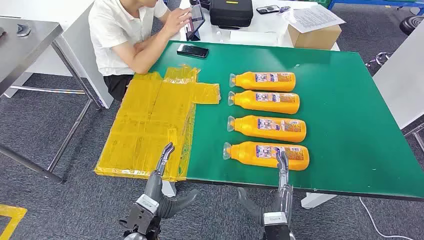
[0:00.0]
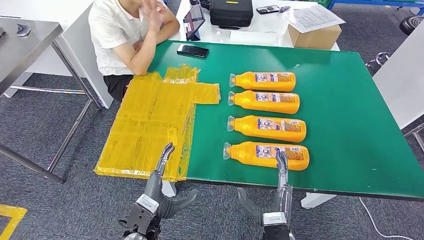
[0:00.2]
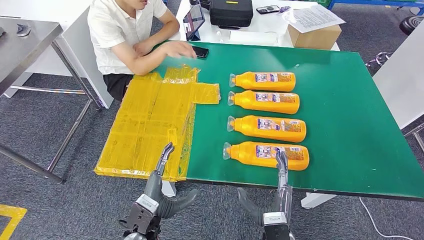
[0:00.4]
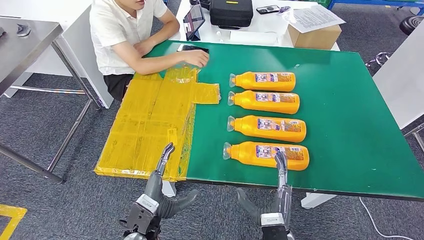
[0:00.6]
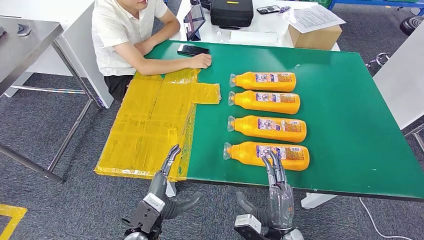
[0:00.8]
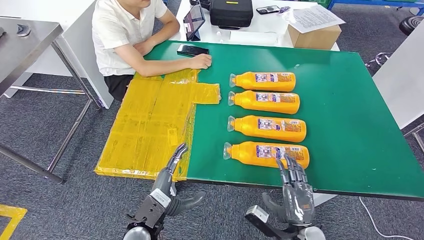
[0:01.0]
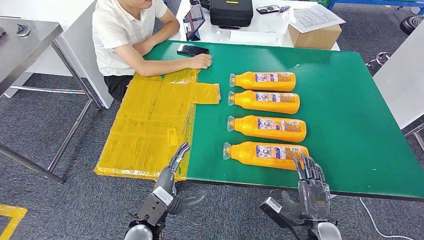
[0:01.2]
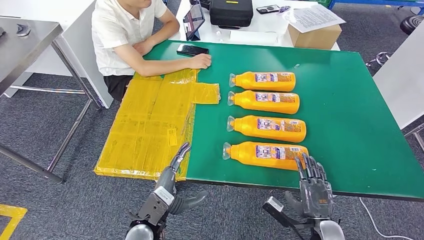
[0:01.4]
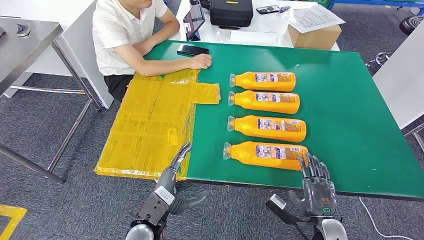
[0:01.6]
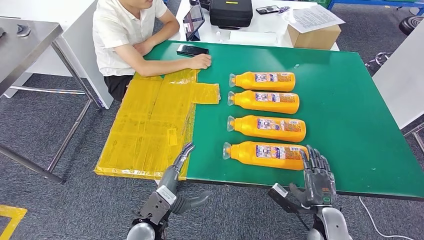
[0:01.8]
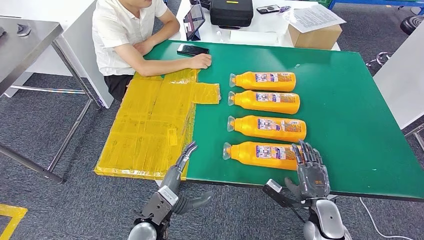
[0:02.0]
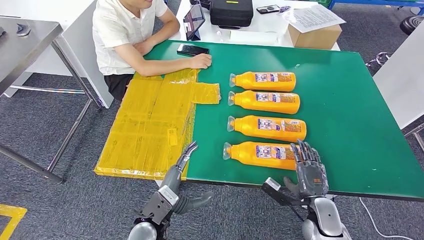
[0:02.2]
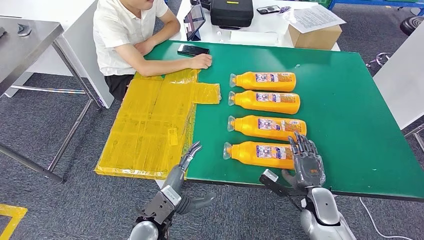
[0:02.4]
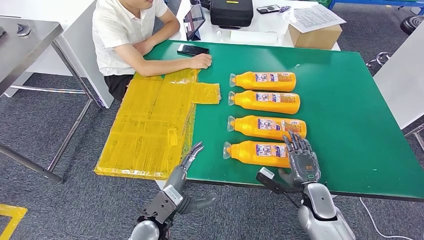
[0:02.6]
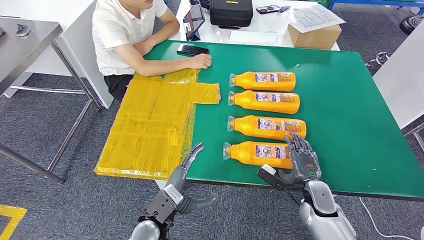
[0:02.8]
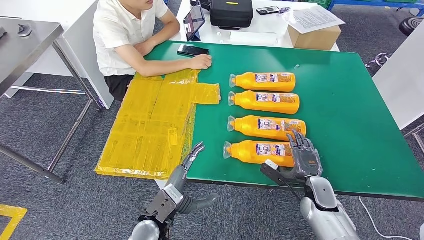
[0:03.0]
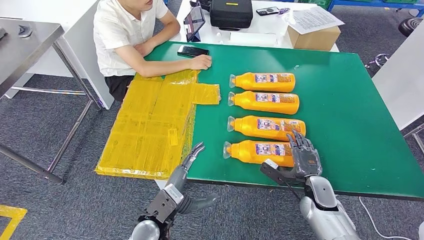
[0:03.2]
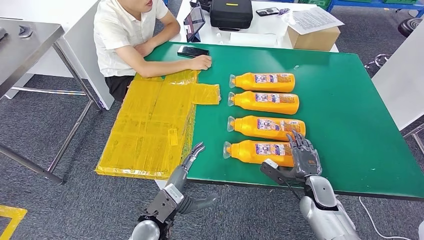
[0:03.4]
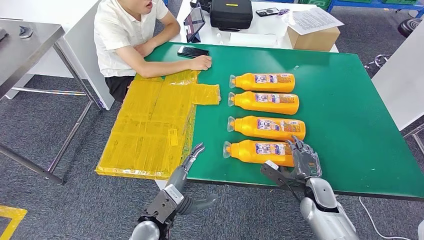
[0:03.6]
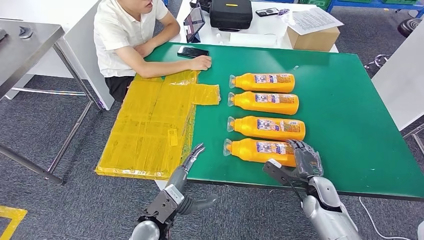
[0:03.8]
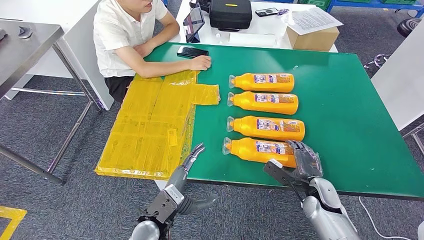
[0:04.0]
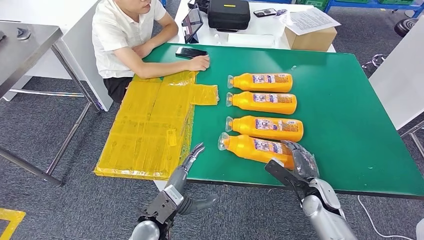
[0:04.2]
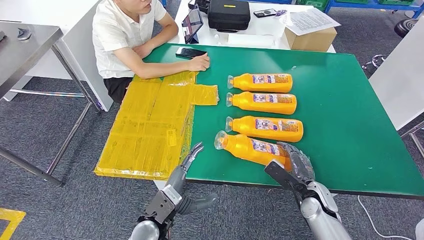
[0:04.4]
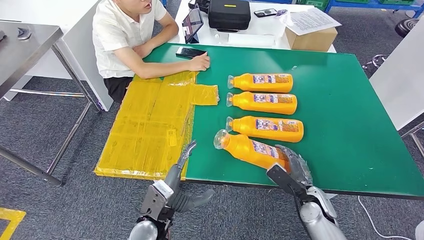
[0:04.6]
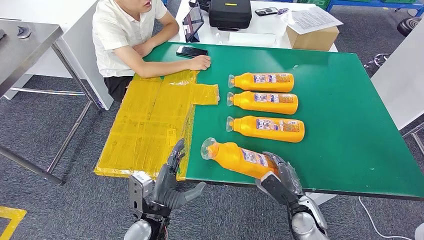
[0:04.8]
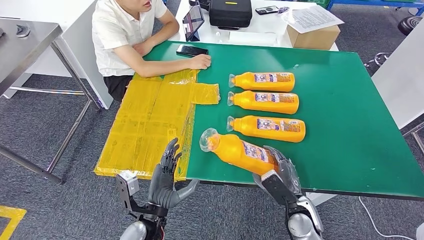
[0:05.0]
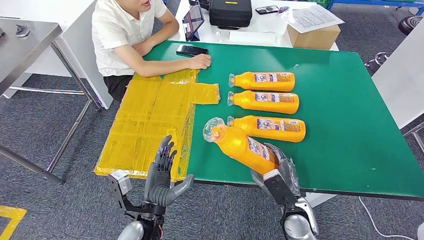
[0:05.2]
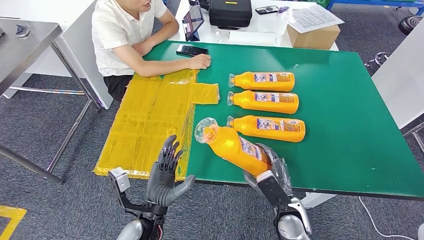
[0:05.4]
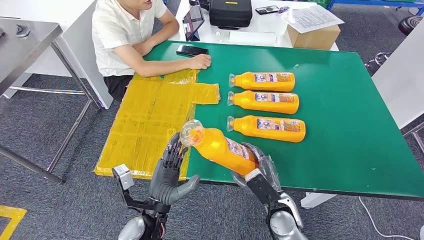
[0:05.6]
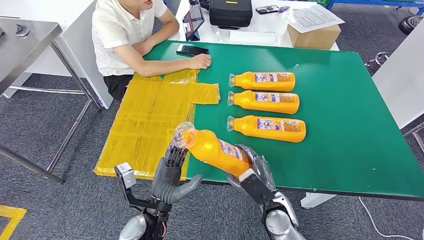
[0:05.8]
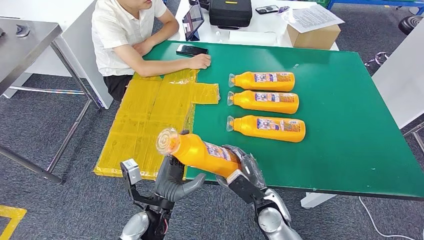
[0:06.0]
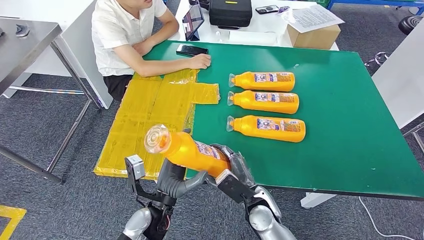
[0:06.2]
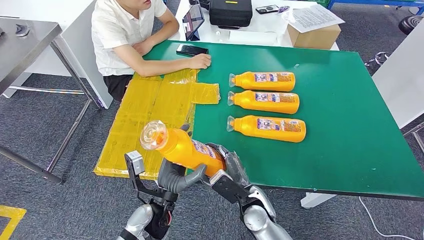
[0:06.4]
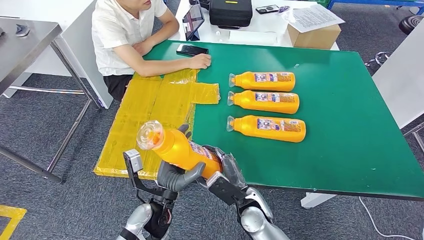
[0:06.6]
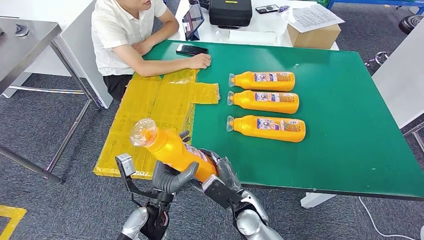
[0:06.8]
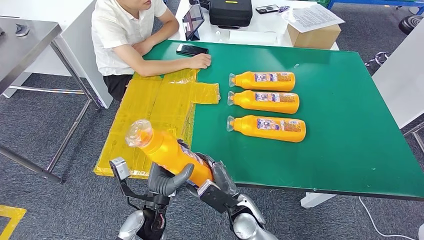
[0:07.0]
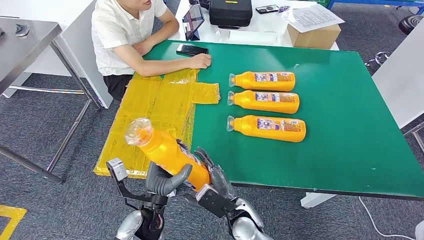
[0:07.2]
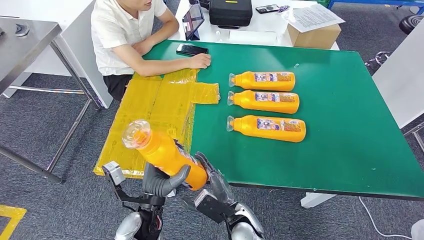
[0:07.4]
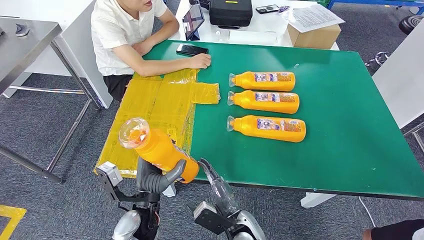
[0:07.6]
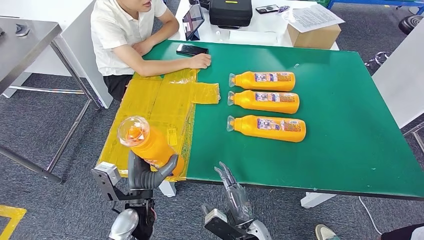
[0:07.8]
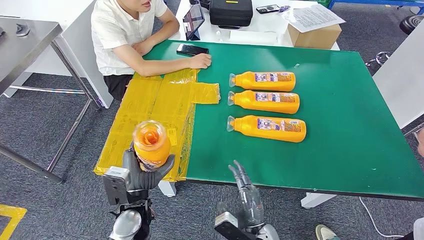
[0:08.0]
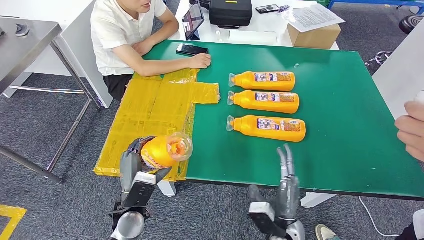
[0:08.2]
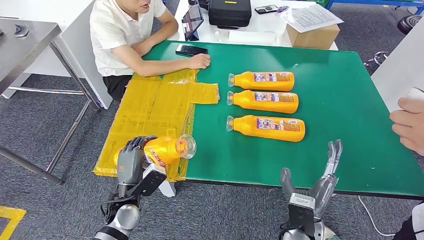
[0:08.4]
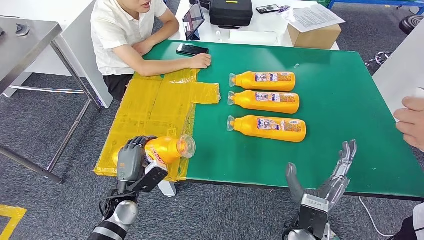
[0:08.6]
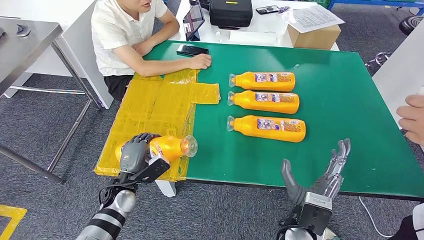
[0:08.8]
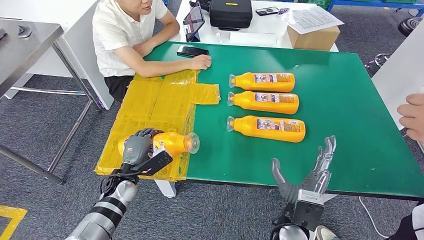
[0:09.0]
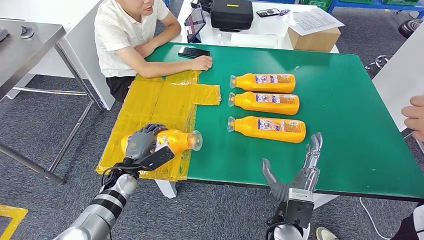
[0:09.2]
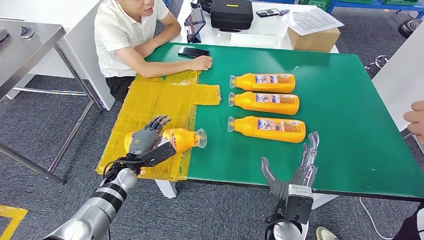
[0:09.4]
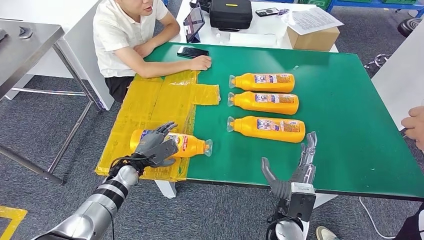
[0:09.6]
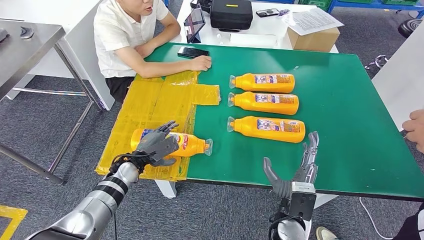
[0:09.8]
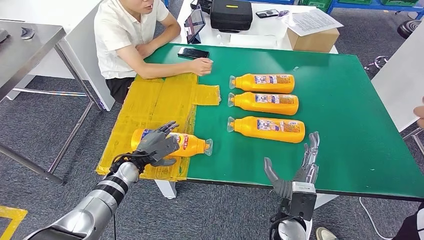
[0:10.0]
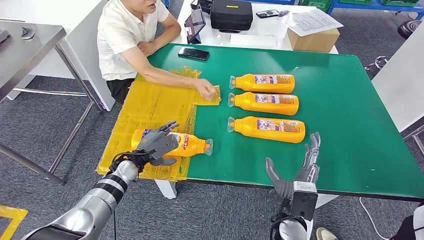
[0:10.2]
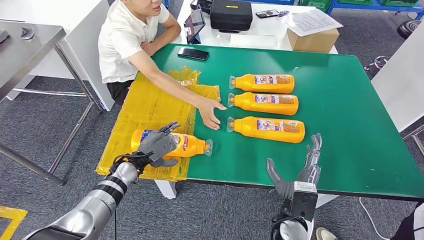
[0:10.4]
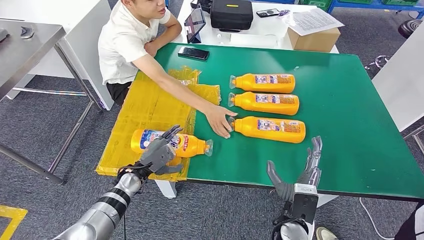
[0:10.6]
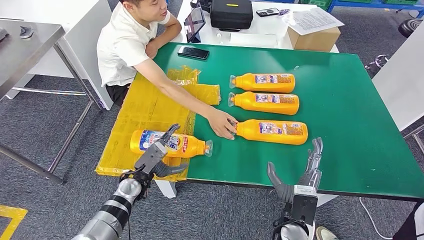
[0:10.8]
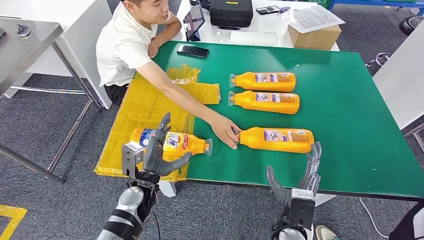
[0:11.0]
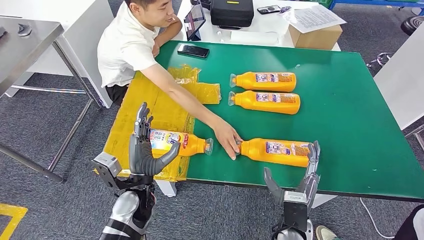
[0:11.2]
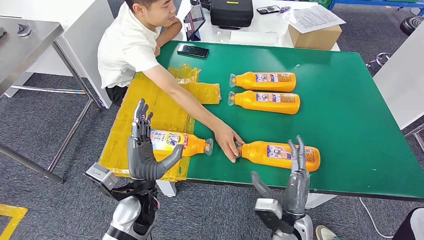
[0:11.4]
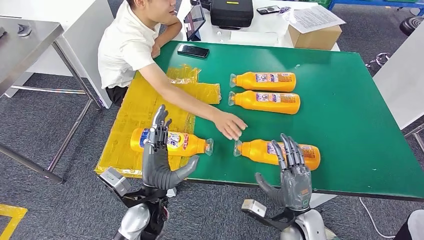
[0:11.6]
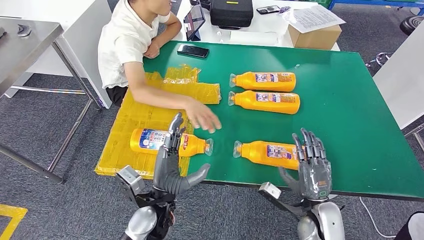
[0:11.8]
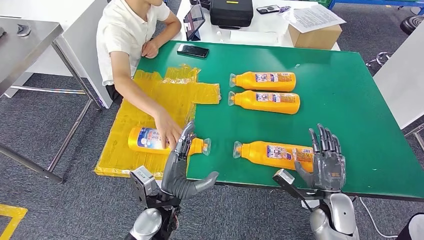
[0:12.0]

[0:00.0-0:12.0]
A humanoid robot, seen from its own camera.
Step, 0:00.0 to 0:05.6: Take the bottle from the table.
Step, 0:05.8 to 0:10.4: Flip the bottle to face forward.
0:01.6 to 0:03.0: The right hand moves forward, some 10 cm.
0:06.0 to 0:07.6: The right hand goes roughly 10 cm to the left and backward.
0:07.6 to 0:09.0: The right hand moves to the right and upward, roughly 10 cm. Meanwhile the left hand heads to the left and forward, covering some 15 cm.

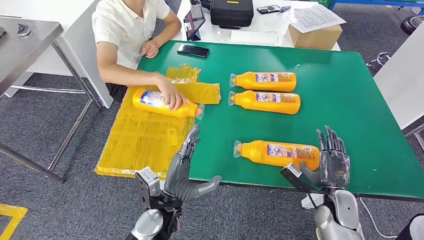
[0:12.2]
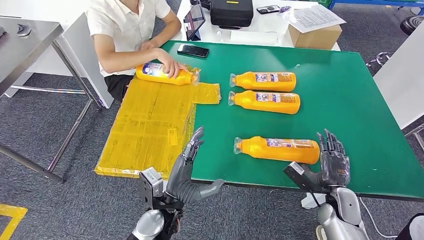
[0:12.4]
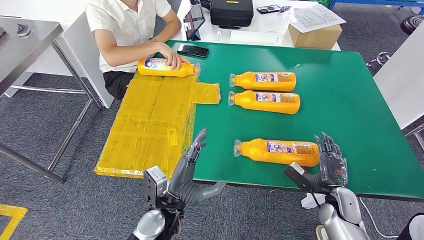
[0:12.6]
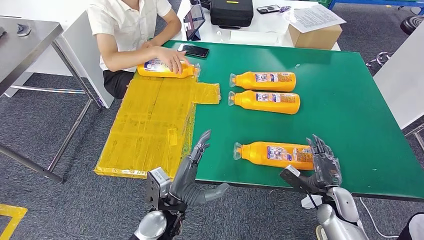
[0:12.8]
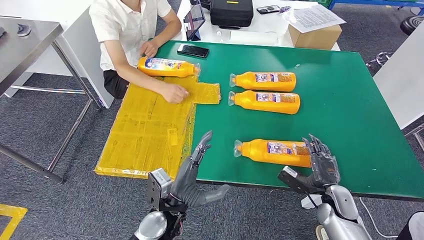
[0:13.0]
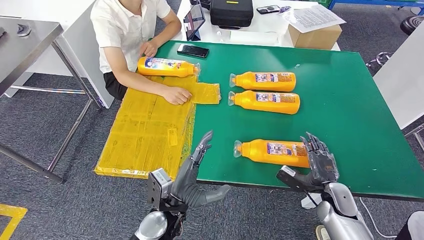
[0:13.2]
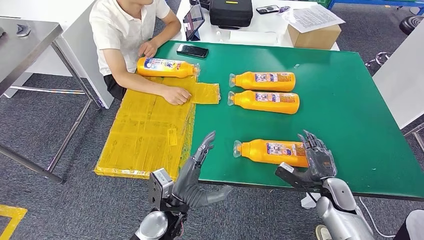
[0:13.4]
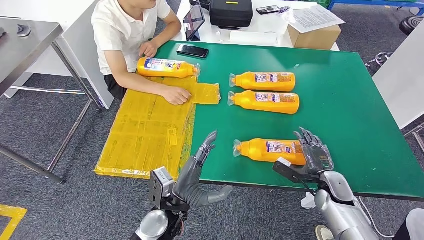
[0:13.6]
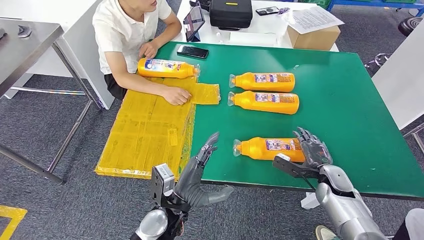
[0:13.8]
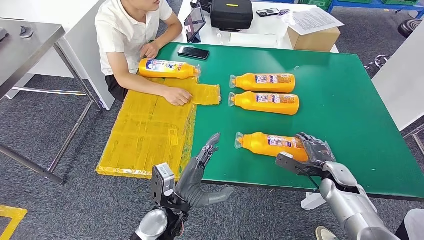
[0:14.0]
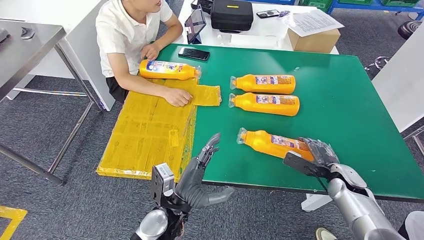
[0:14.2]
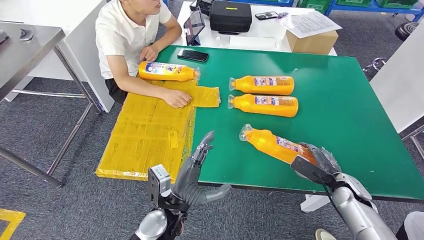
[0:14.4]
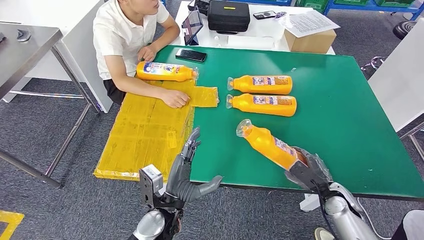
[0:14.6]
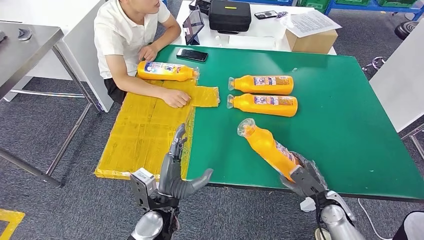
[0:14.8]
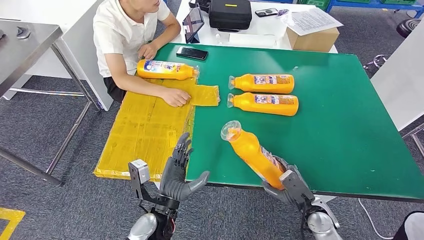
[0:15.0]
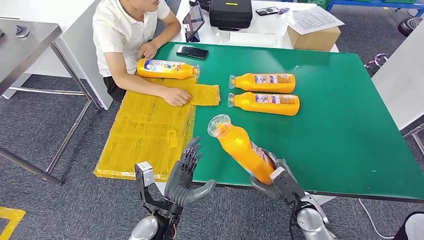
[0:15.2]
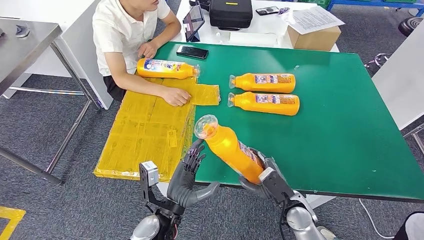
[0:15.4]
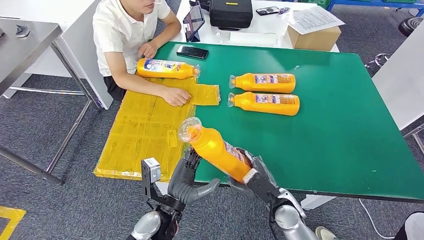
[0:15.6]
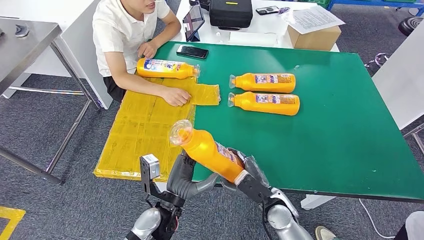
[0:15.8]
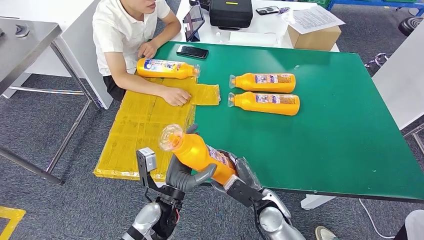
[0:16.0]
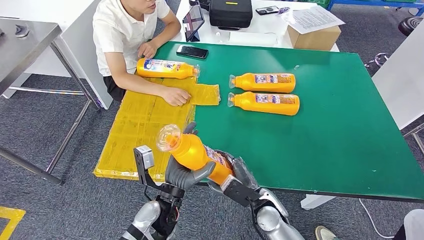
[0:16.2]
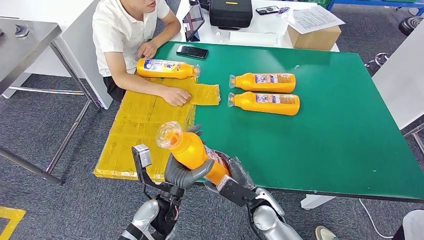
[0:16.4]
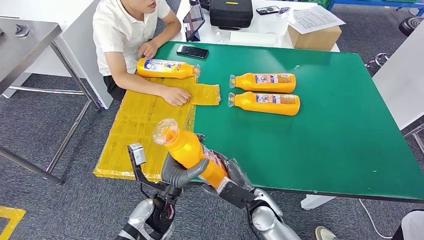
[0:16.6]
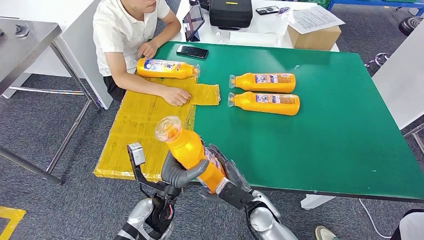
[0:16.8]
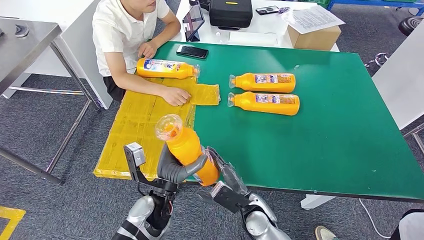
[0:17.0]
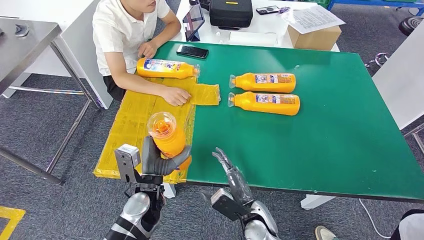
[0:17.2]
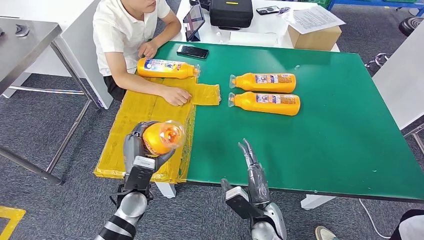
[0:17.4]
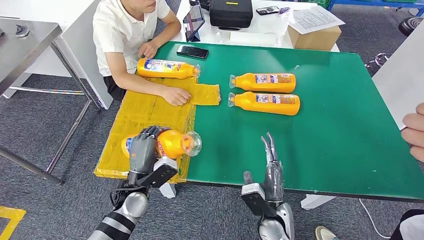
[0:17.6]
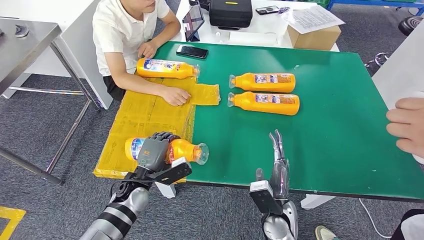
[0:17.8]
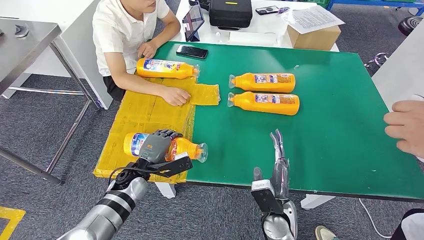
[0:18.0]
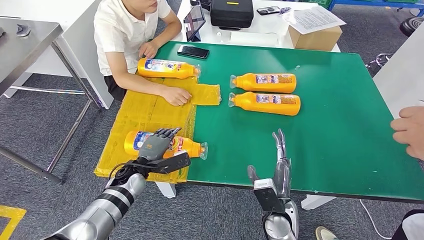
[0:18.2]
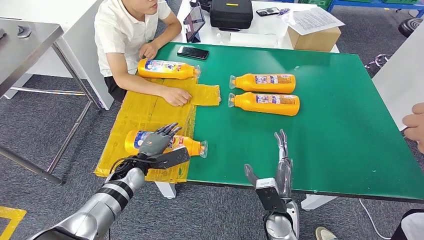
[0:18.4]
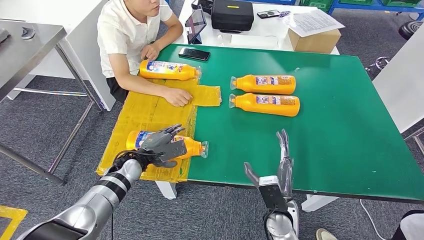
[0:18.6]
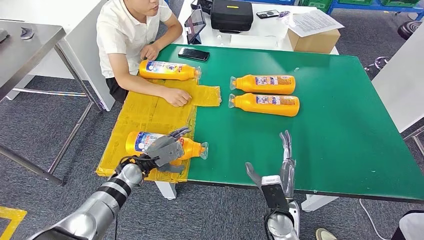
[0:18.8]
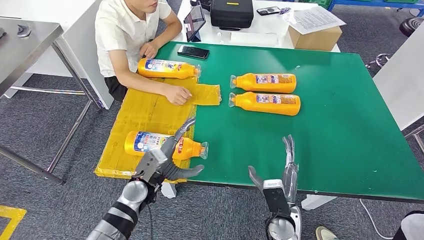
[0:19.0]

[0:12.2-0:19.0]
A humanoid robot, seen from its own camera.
Step, 0:12.2 to 0:14.8: Pick up the bottle from the table.
0:15.0 to 0:16.2: The right hand shifts roughly 15 cm to the left.
0:16.2 to 0:17.6: The left hand moves to the left, approximately 10 cm.
0:17.6 to 0:19.0: The left hand reaches roughly 10 cm forward, then returns.
